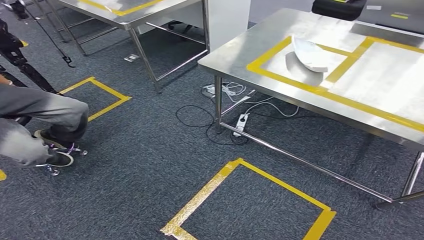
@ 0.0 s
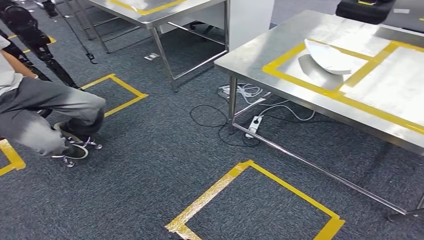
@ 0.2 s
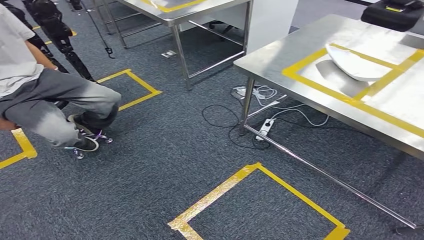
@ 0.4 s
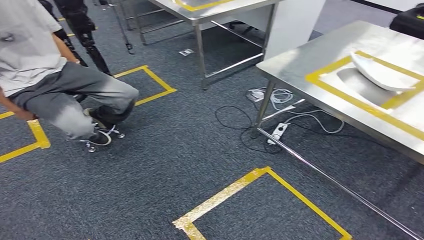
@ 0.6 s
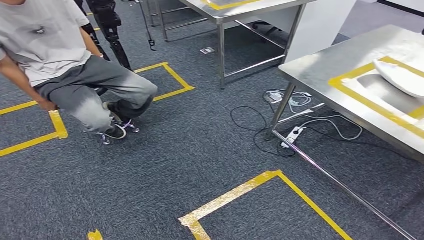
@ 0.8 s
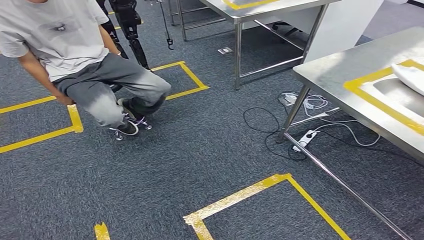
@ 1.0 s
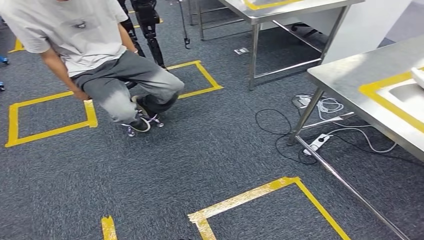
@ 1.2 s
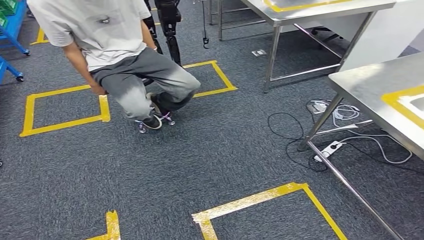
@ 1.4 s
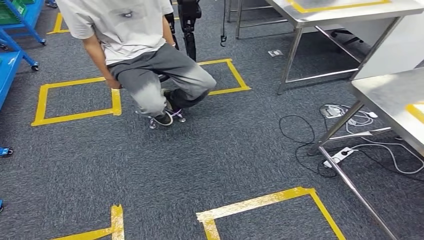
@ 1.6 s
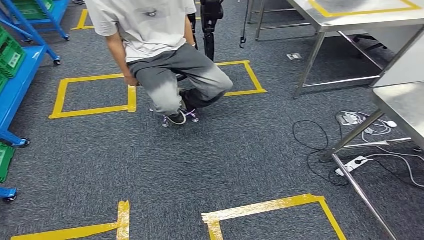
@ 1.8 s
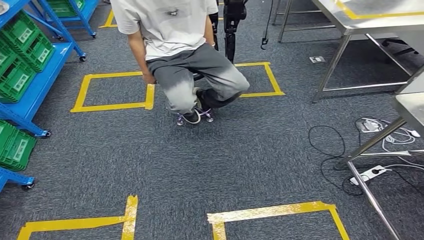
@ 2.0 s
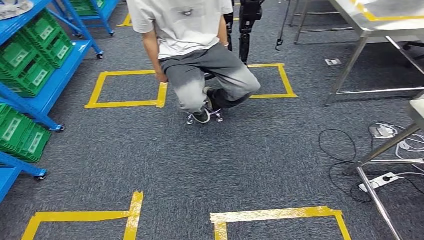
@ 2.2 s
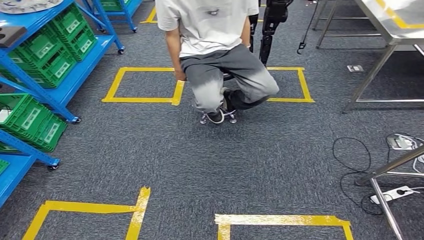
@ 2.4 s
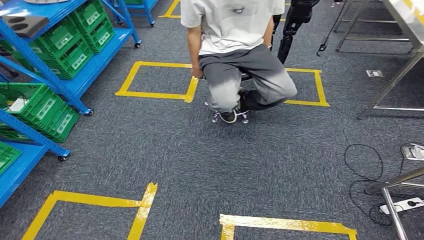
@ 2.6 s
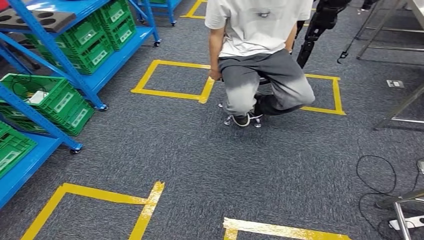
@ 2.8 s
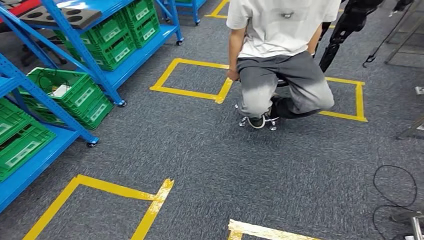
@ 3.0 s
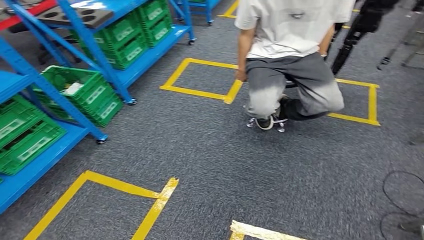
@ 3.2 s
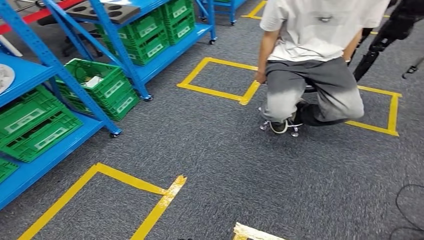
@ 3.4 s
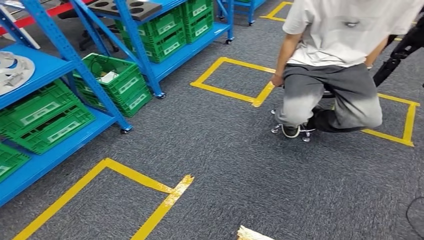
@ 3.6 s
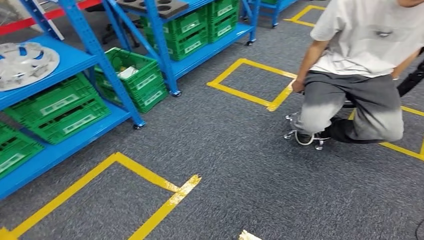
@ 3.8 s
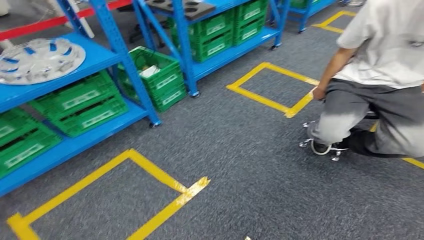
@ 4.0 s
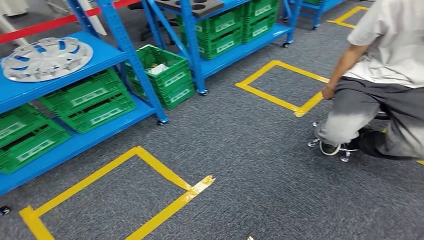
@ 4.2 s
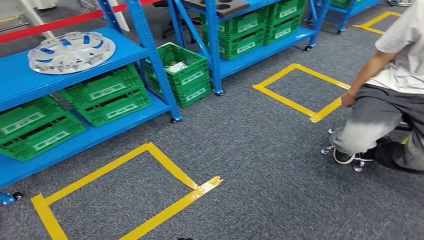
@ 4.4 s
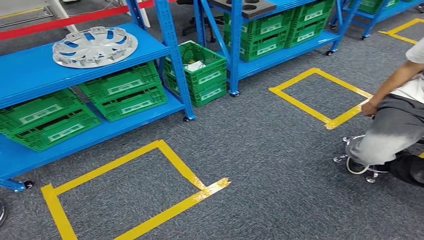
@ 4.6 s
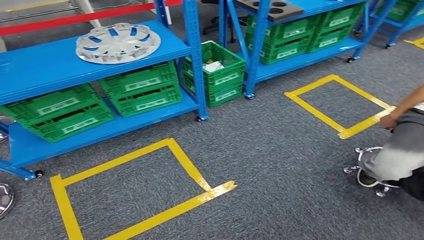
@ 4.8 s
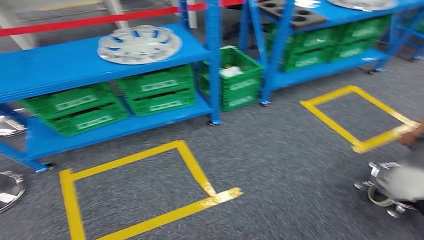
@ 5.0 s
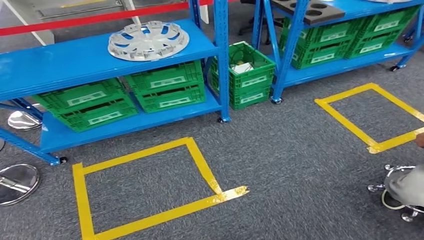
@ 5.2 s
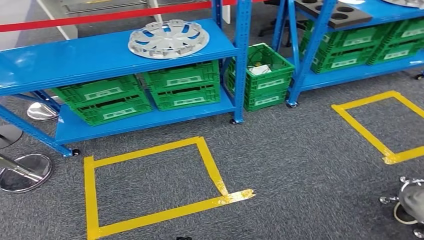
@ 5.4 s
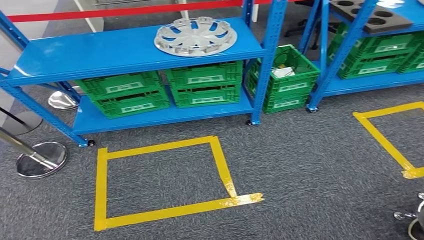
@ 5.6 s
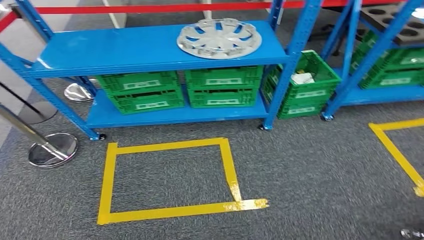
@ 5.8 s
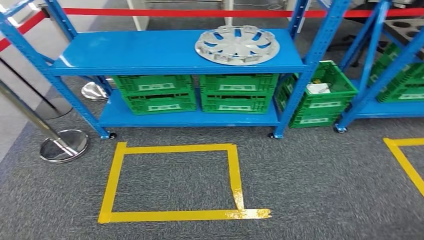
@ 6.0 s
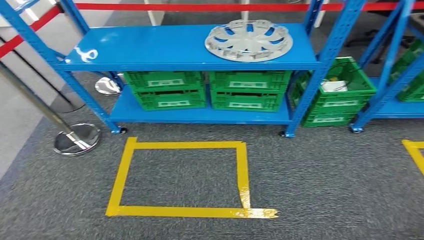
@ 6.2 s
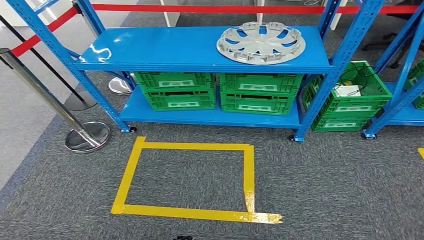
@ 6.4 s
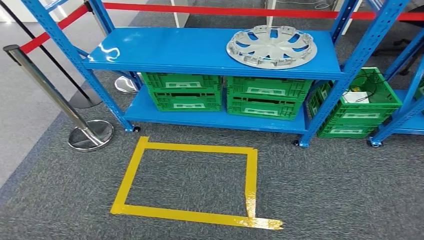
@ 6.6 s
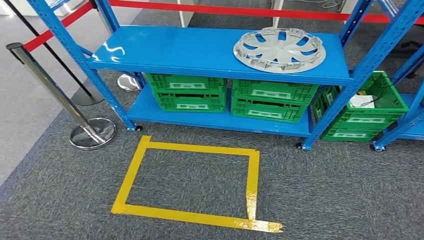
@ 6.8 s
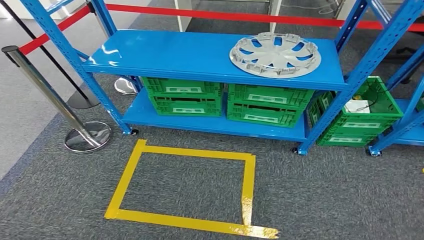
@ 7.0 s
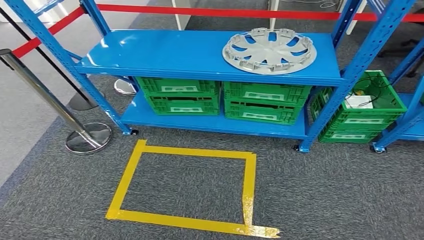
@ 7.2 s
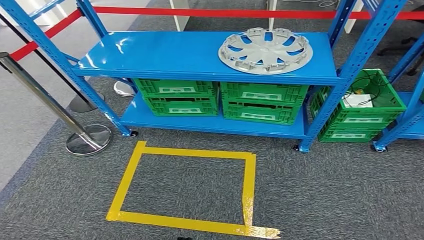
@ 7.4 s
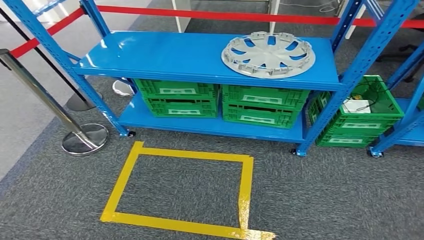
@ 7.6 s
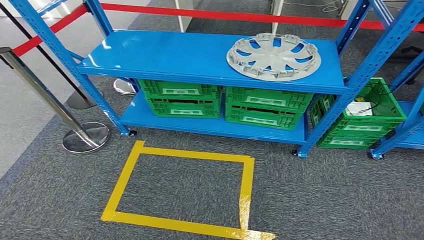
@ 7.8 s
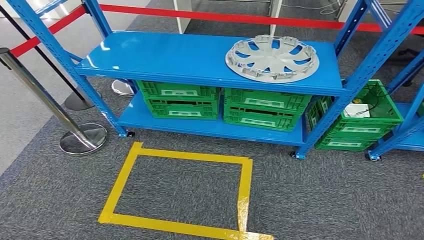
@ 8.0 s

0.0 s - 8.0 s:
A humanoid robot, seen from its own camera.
Step, 0.0 s - 7.8 s: Return to the initial position at the workbench.
